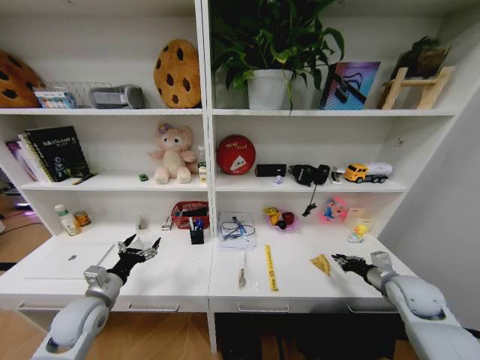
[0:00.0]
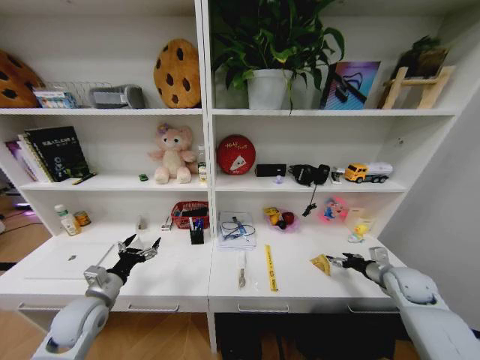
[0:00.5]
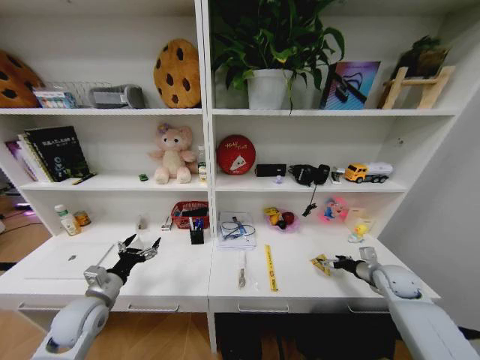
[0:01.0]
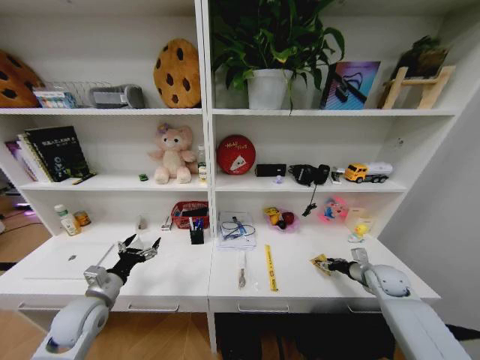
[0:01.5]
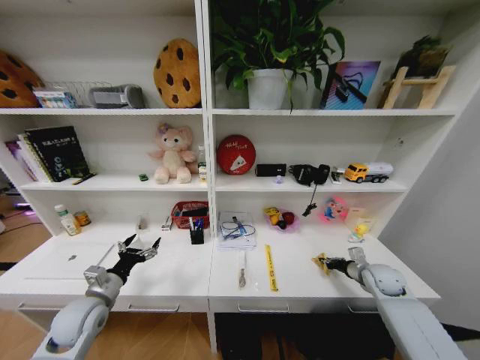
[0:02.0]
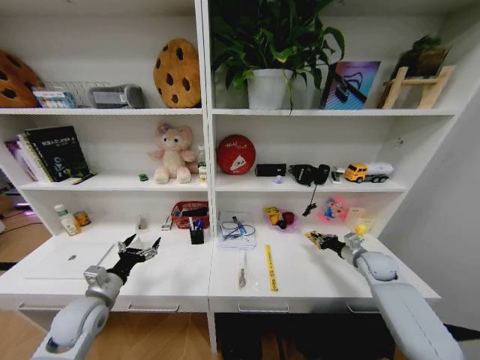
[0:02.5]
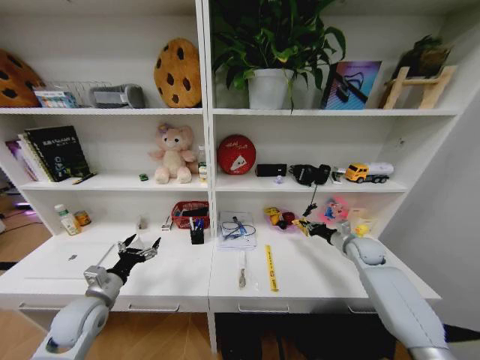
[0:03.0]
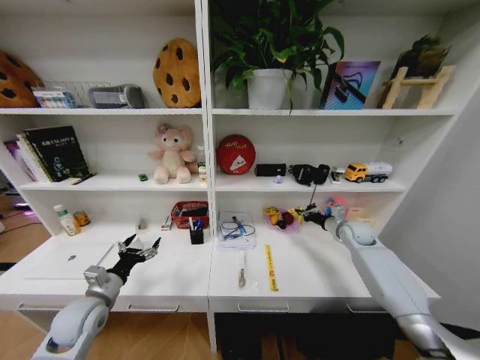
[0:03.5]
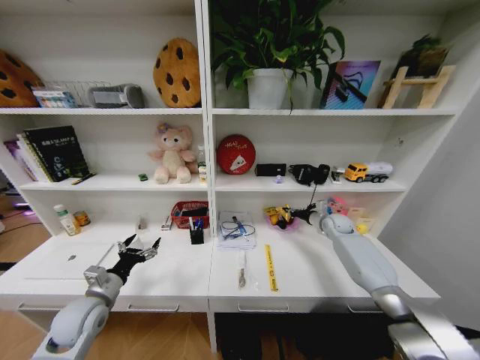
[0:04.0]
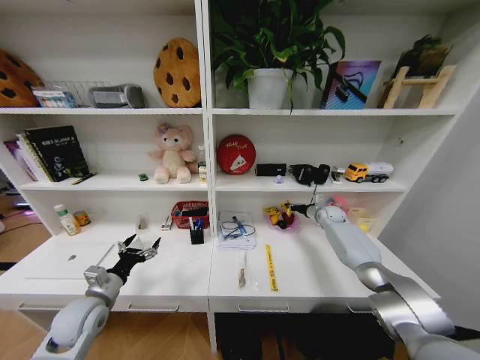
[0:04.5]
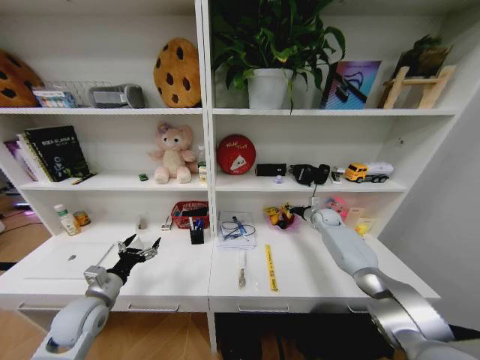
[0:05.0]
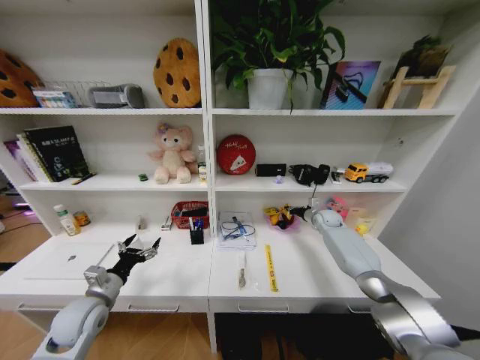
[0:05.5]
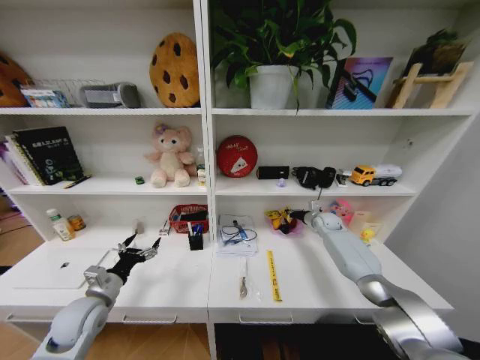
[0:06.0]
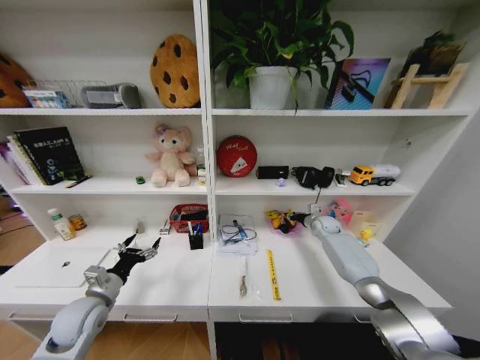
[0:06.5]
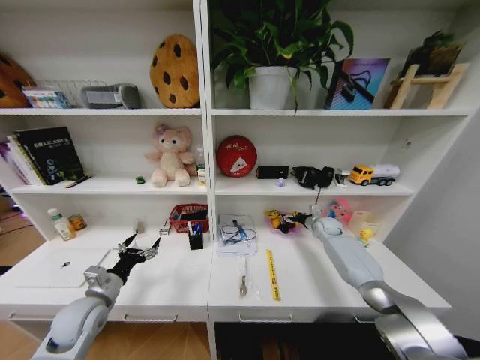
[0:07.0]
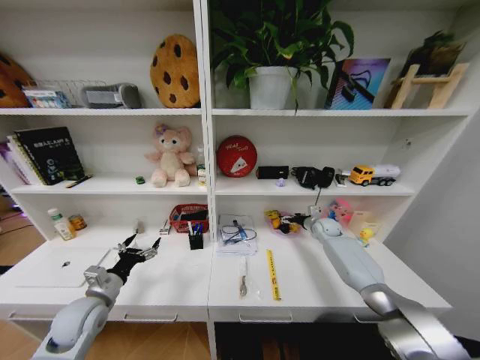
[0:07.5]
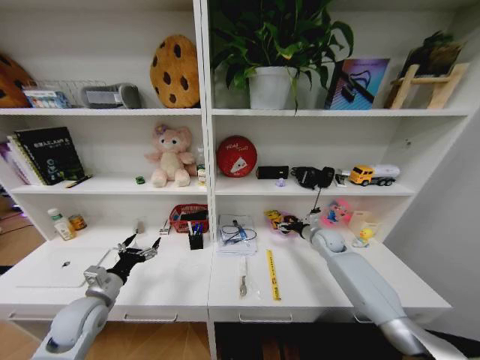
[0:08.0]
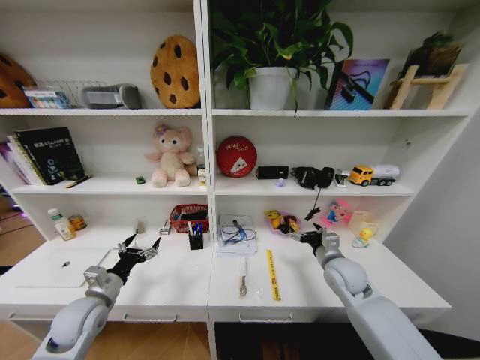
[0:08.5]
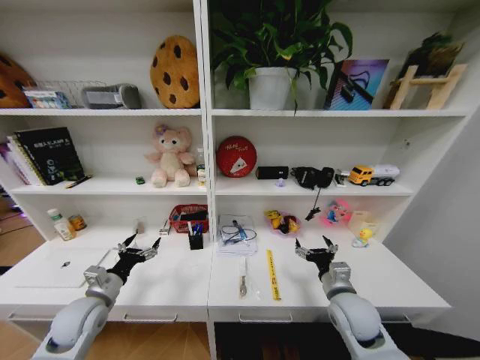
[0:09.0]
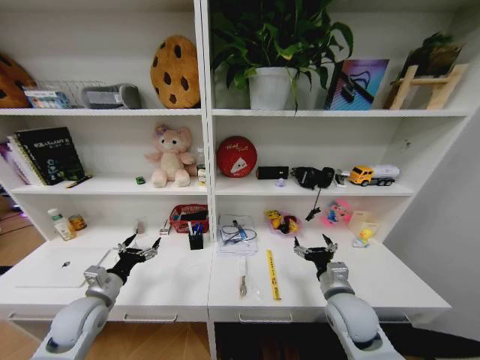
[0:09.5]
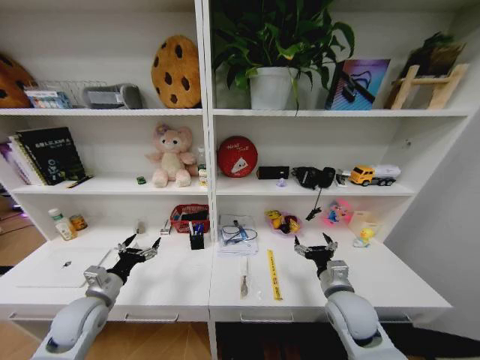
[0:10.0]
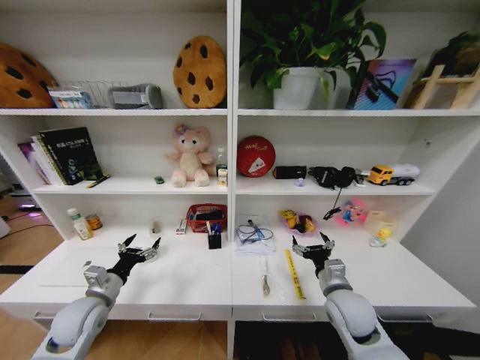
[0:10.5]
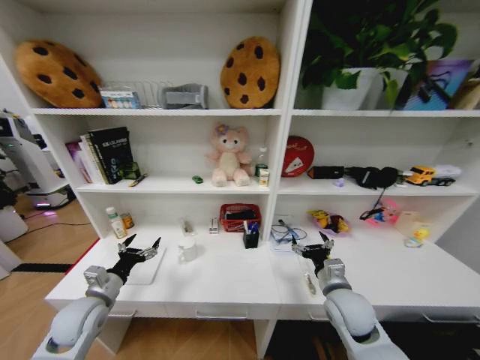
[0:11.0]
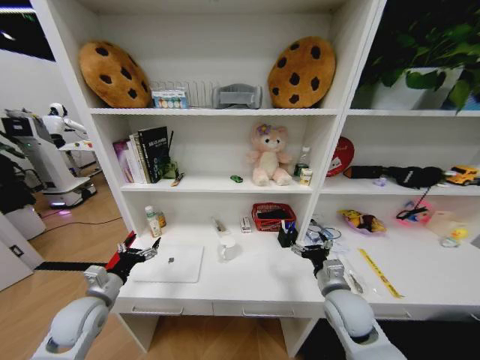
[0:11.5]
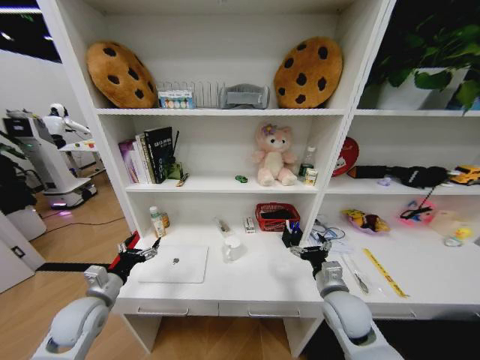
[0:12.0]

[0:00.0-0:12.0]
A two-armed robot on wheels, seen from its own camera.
Task of the whole recording: Organize the objects on the table.
0:00.0 to 0:02.0: The right gripper is displaced forward by about 5 cm, and opens, then closes again.
0:02.0 to 0:04.0: The right gripper shifts roughly 20 cm forward.
0:06.0 to 0:08.0: The right gripper heads backward, covering about 10 cm, and opens its fingers.
0:08.0 to 0:10.0: The right gripper shifts about 25 cm backward.
